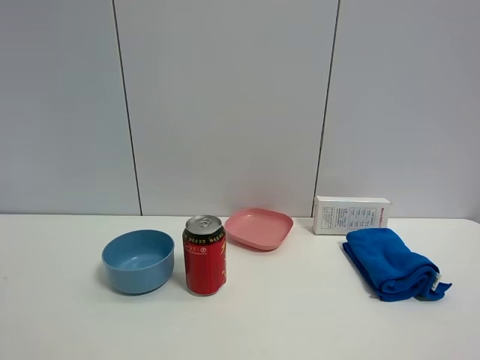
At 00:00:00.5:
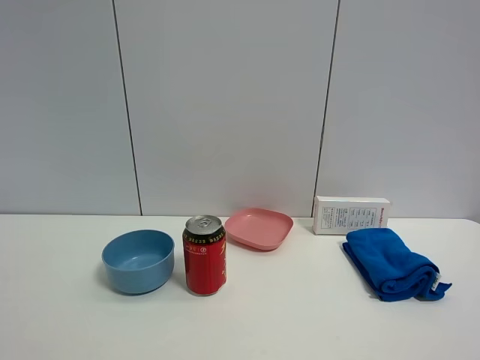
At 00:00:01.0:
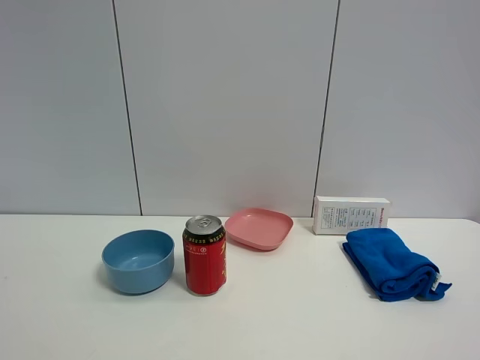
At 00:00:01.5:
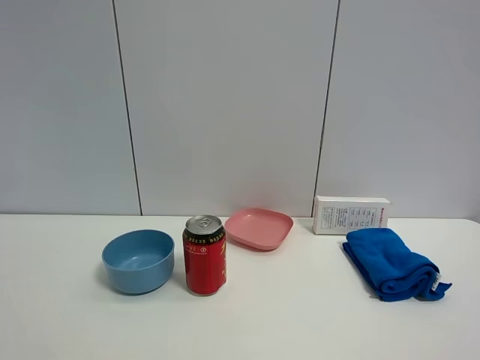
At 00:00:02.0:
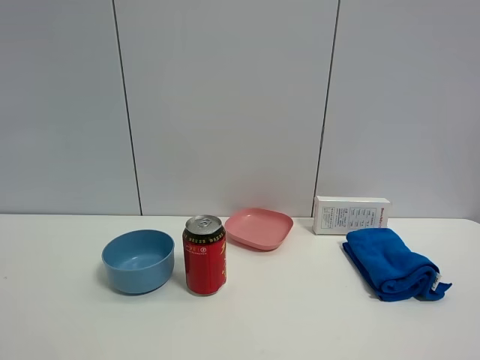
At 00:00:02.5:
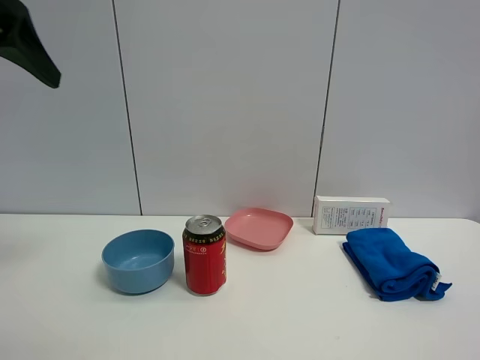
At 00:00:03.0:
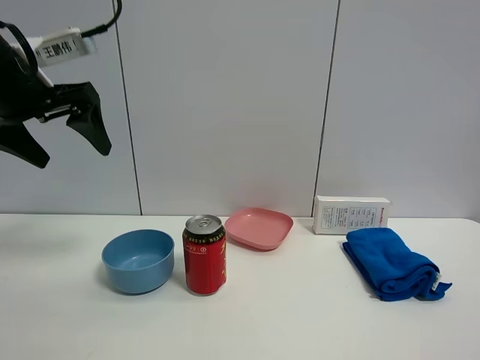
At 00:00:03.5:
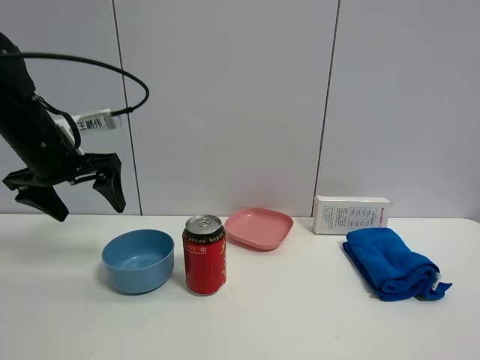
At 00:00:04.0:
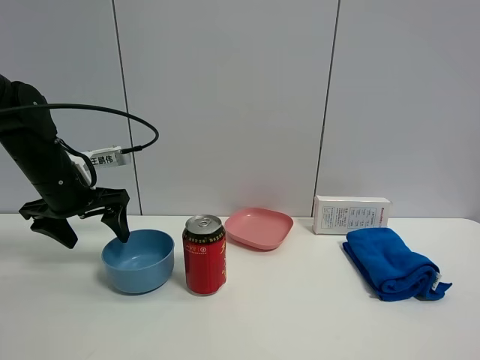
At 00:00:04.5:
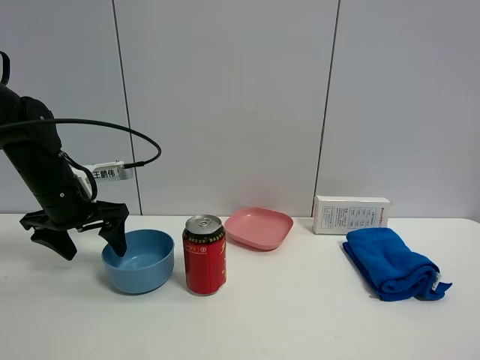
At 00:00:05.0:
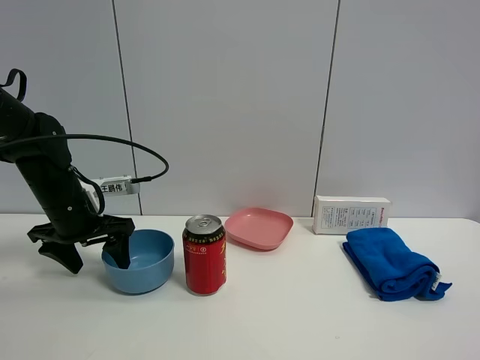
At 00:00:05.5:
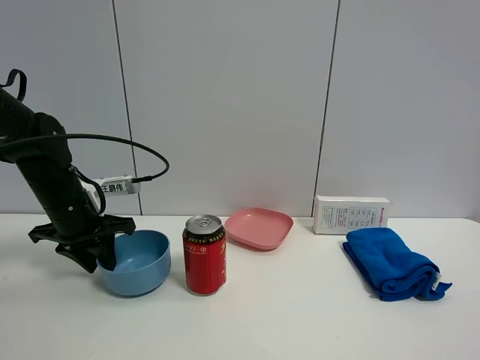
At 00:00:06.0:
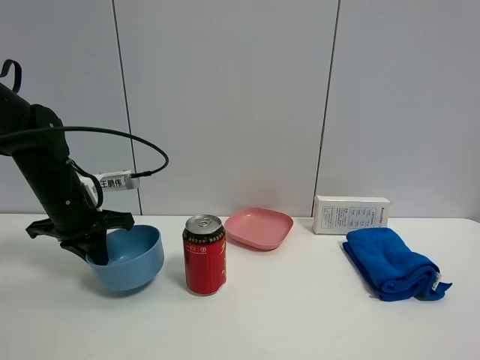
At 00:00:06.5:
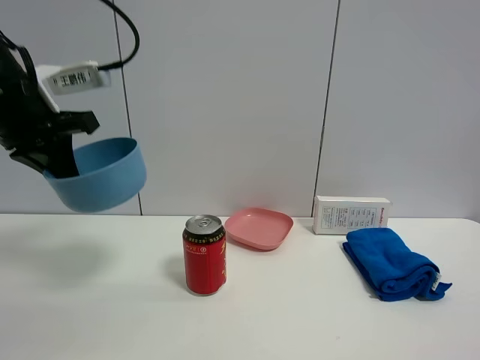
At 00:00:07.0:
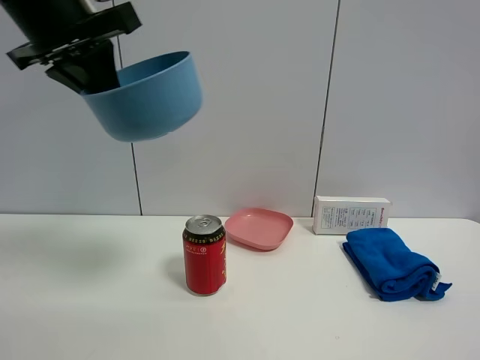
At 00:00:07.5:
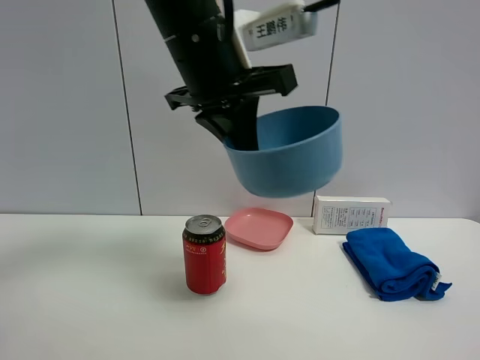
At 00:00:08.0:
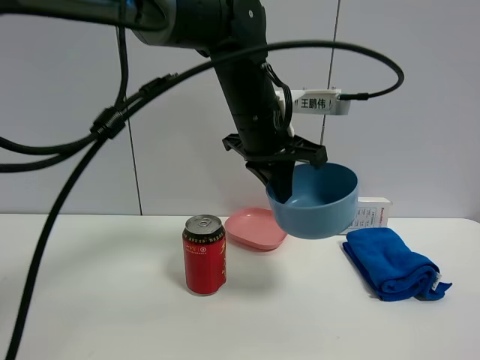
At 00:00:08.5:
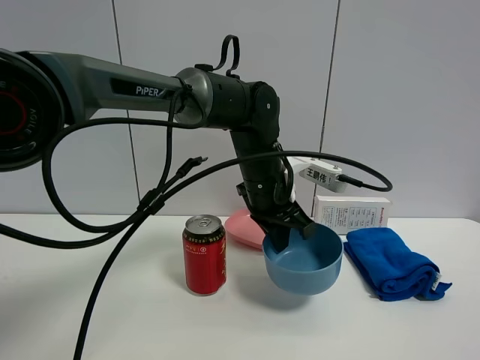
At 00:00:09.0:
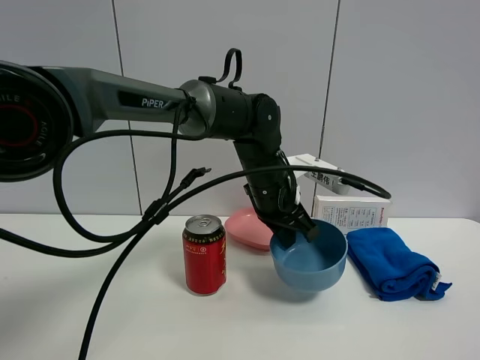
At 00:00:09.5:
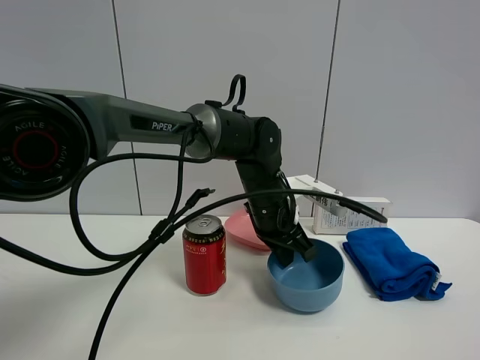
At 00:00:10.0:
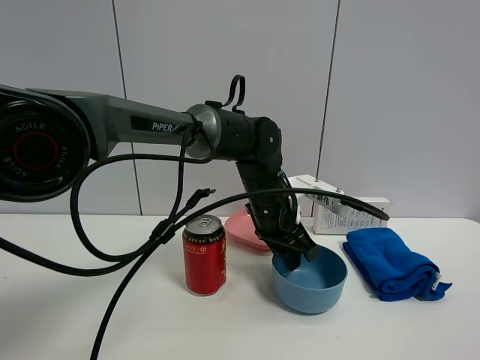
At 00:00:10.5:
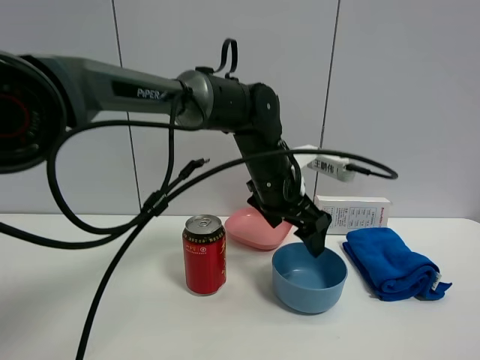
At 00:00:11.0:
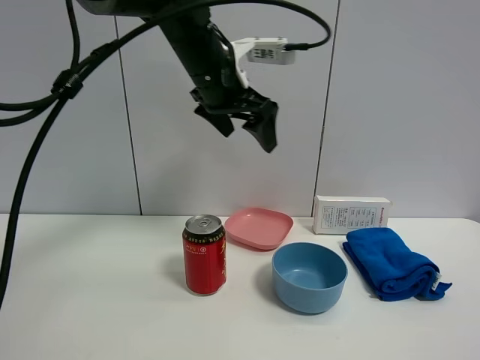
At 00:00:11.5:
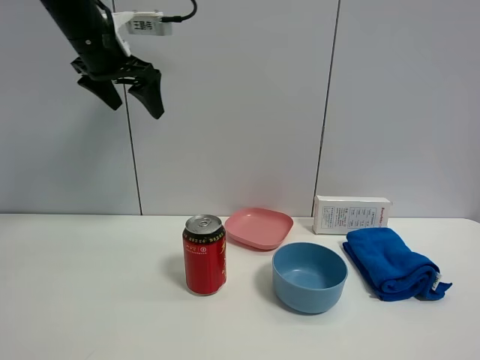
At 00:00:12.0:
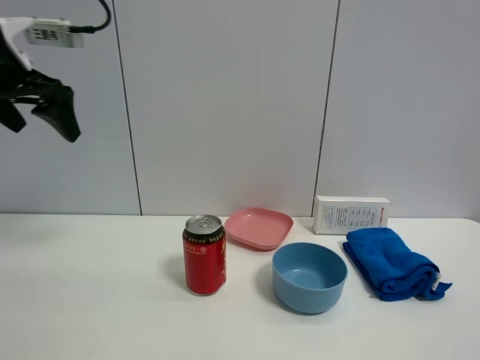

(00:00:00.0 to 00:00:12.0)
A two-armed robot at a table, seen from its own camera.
Task of the whole recording: the gripper move the object.
Step, 00:00:00.0 - 00:00:05.5: Grasp the blue bowl with the left gripper.
Step, 00:00:06.0 - 00:00:10.0: Place the blue bowl on the table with the left gripper.
00:00:02.0 - 00:00:04.0: The left gripper moves forward and downward, some 35 cm.
00:00:04.0 - 00:00:06.0: The left gripper closes up.
00:00:06.0 - 00:00:08.0: The left gripper moves to the right and upward, some 30 cm.
00:00:08.0 - 00:00:10.0: The left gripper is displaced downward by some 15 cm, and opens its fingers.
00:00:10.0 - 00:00:12.0: The left gripper moves to the left and upward, about 40 cm, and opens its fingers.

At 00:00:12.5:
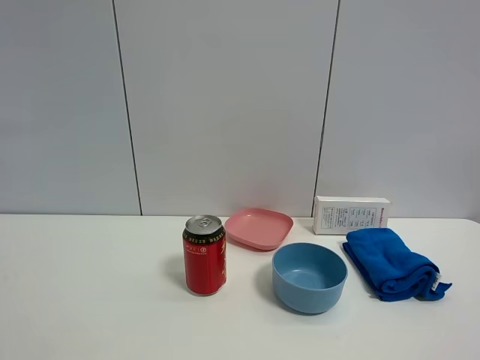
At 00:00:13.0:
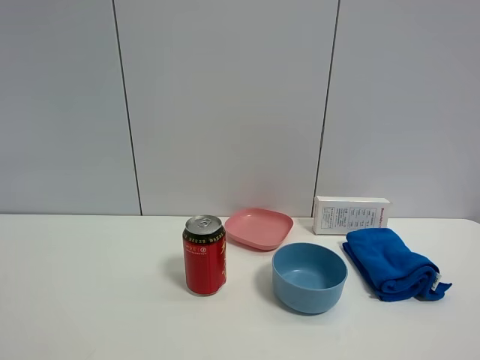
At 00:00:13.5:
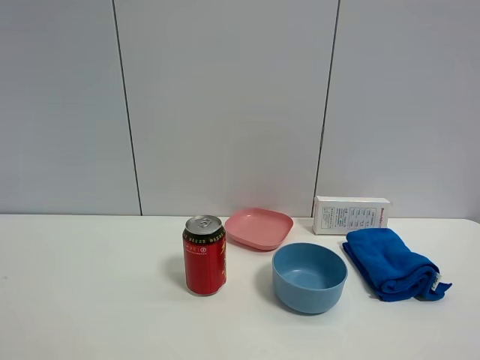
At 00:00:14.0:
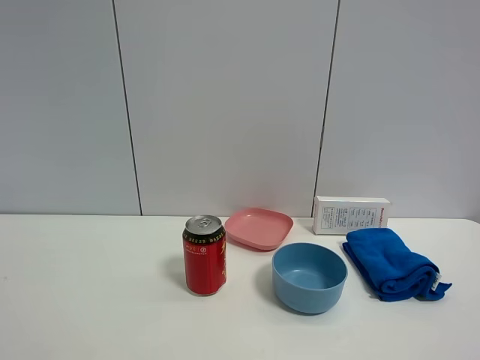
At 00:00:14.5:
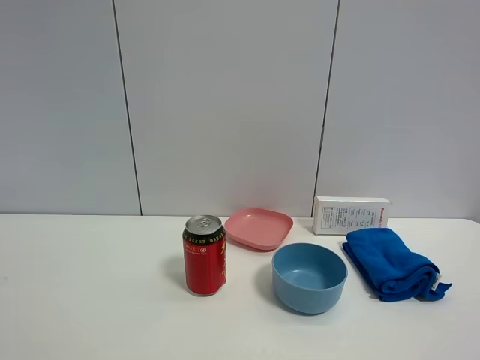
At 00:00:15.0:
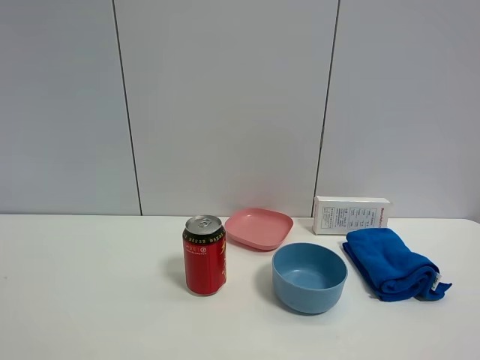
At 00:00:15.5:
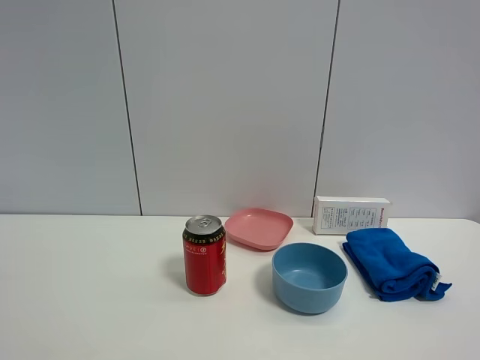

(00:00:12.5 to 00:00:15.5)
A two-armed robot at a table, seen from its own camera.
Task of the whole recording: the gripper move the object.
00:00:14.0 - 00:00:15.5: Neither gripper changes place.

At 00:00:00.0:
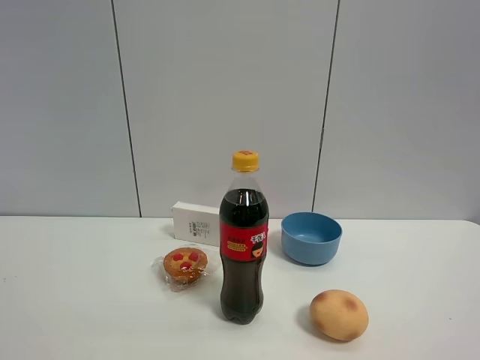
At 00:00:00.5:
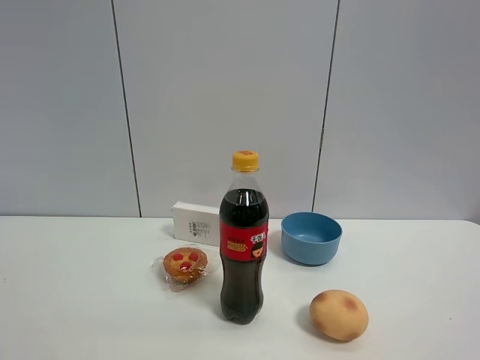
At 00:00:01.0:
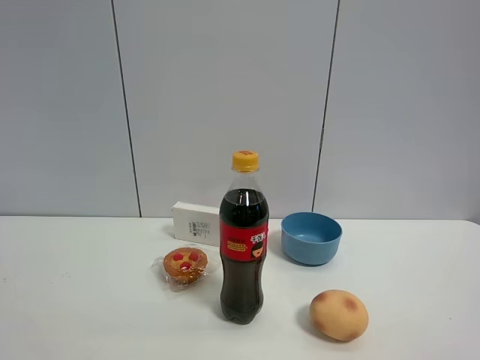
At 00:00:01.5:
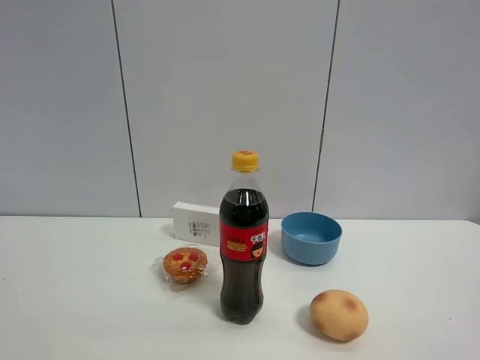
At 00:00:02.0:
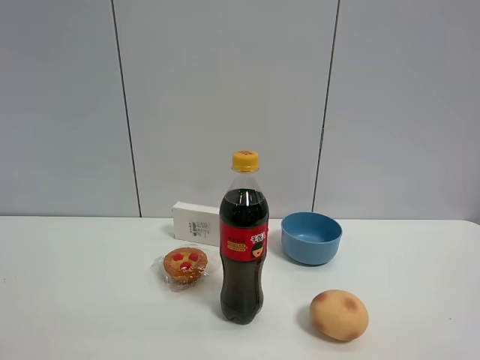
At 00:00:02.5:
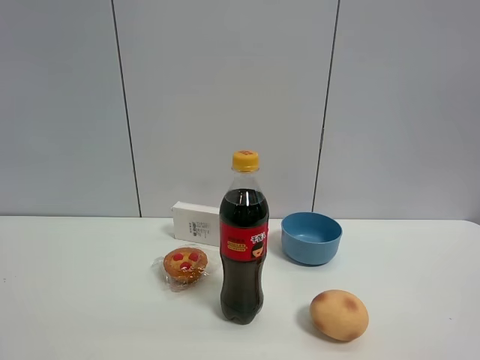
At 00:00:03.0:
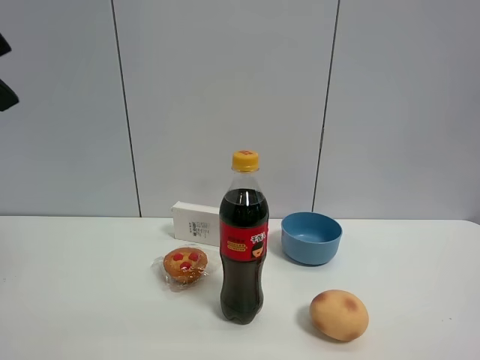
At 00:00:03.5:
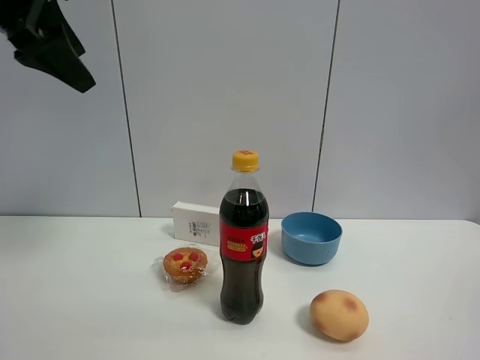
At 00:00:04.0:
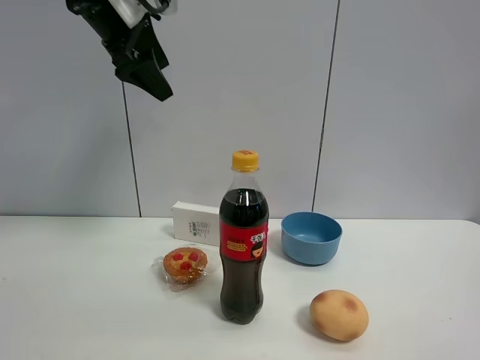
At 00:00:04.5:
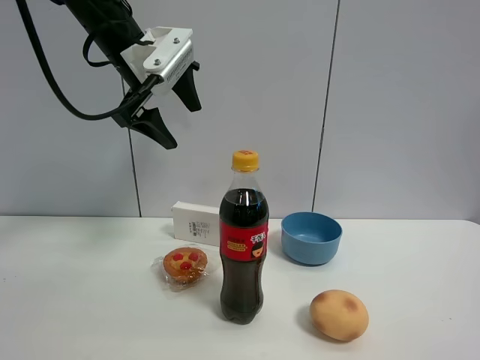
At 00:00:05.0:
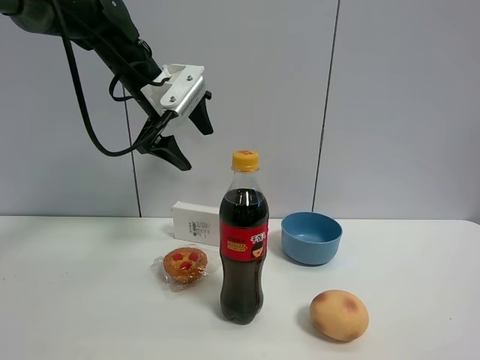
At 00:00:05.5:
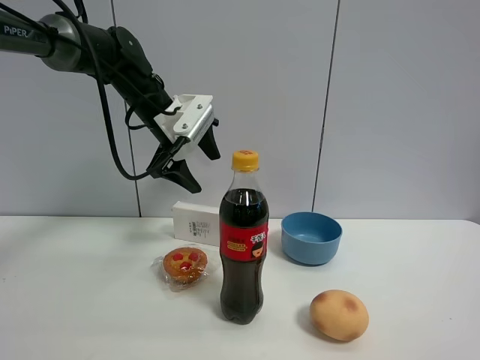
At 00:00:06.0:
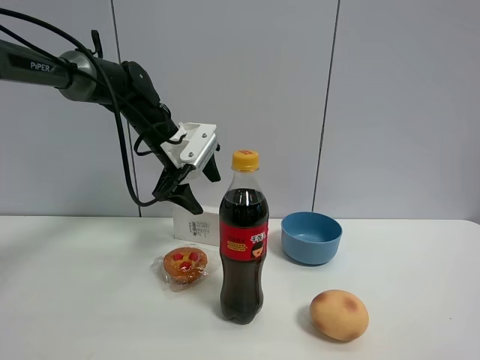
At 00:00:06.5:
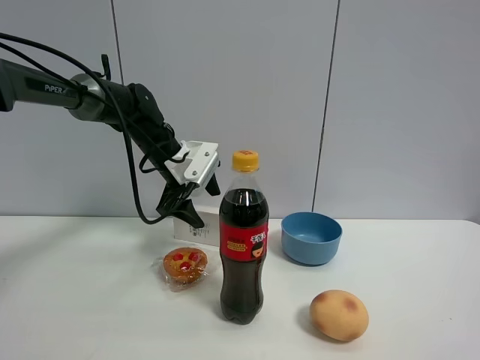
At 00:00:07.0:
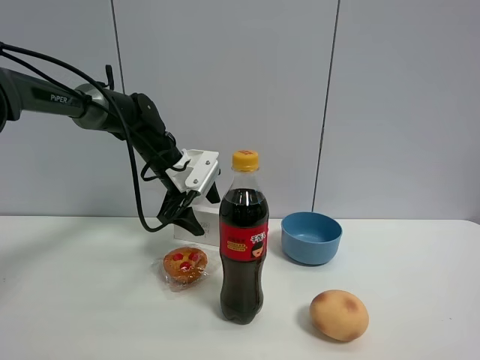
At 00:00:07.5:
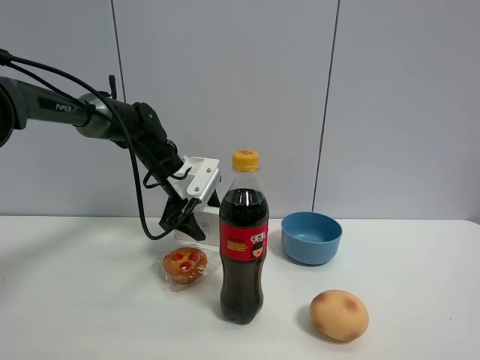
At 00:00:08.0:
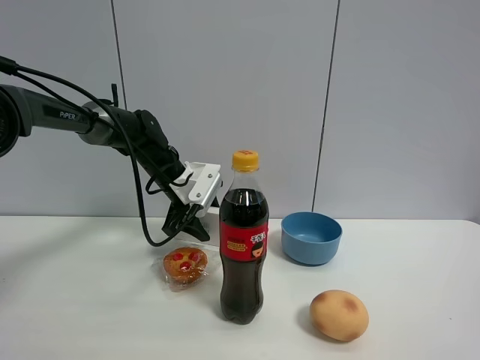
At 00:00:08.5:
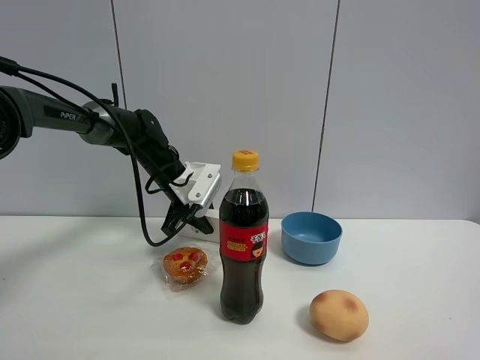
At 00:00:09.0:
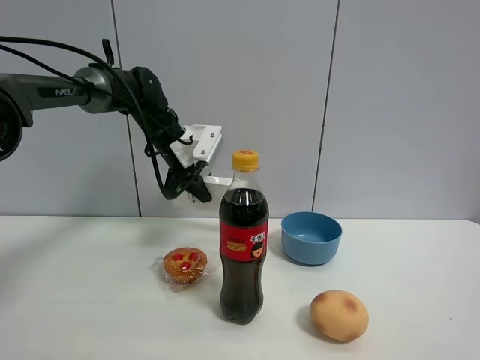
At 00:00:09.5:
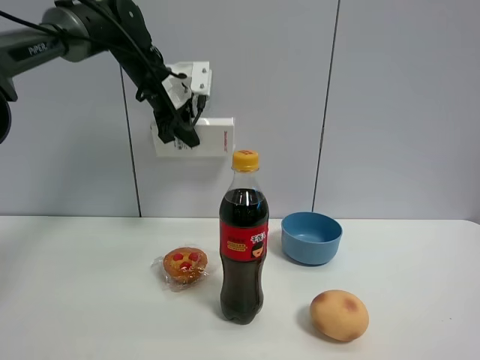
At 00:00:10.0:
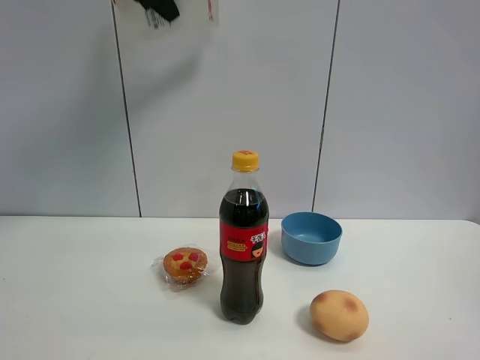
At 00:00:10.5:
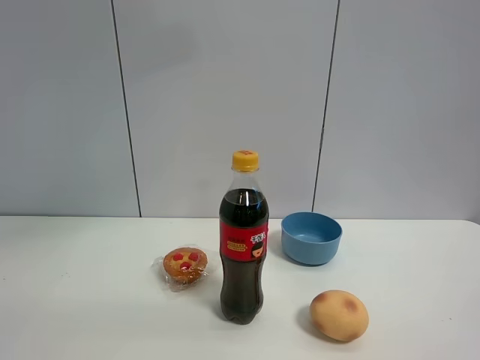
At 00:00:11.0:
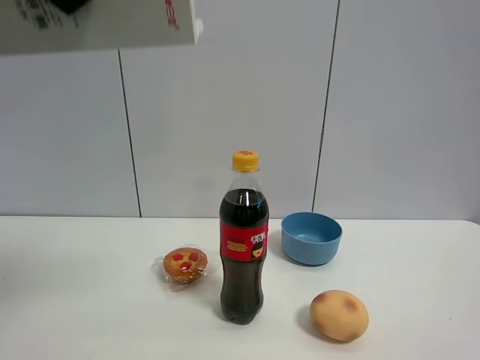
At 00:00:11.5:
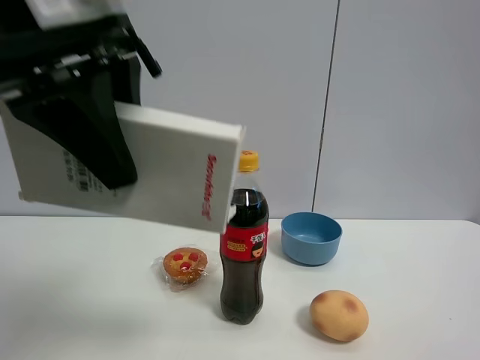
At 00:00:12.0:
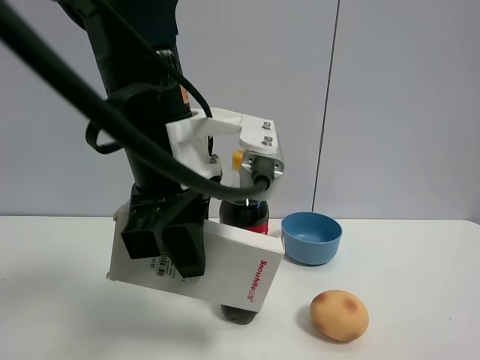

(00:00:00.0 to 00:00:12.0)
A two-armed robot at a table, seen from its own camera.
Task of the whole recording: the gripper move the object.
Step, 00:00:00.0 - 00:00:08.0: Grasp the USB box with the left gripper.
00:00:02.0 - 00:00:04.0: The left gripper travels forward by approximately 40 cm.
00:00:04.0 - 00:00:06.0: The left gripper shifts approximately 20 cm downward and forward.
00:00:06.0 - 00:00:08.0: The left gripper heads downward, covering some 5 cm.
00:00:08.0 - 00:00:10.0: The left gripper shifts some 35 cm upward, and closes up.
00:00:10.0 - 00:00:12.0: The left gripper is displaced downward, backward and to the right by about 30 cm.
